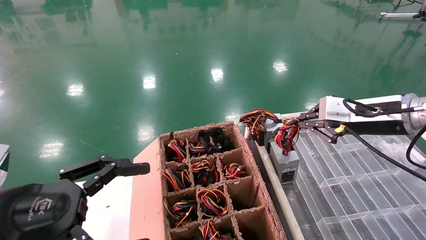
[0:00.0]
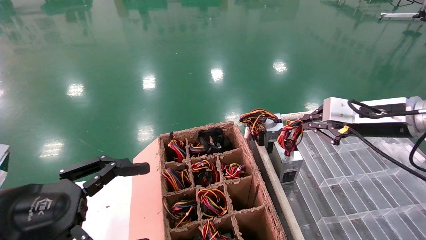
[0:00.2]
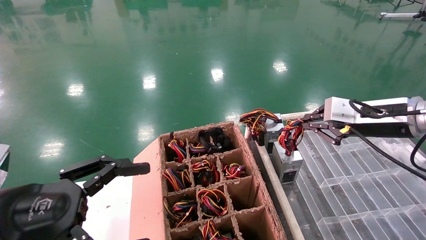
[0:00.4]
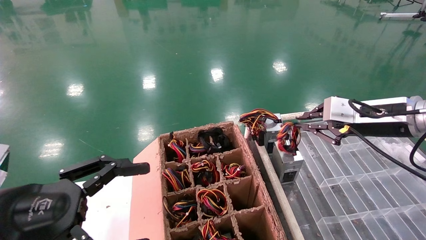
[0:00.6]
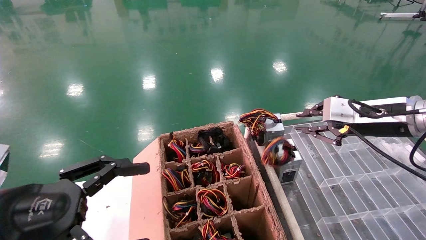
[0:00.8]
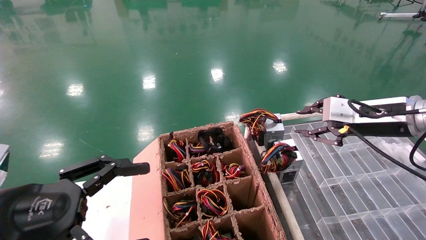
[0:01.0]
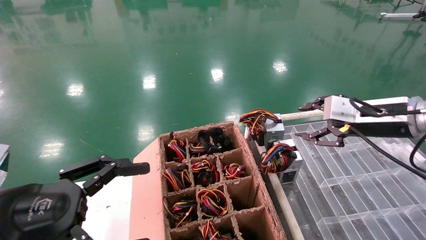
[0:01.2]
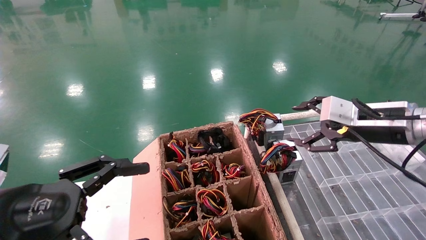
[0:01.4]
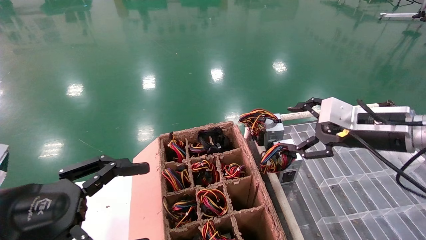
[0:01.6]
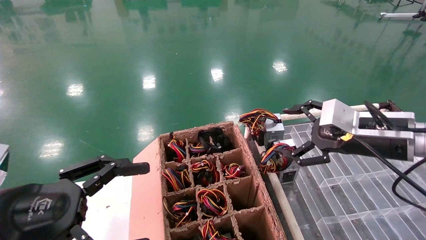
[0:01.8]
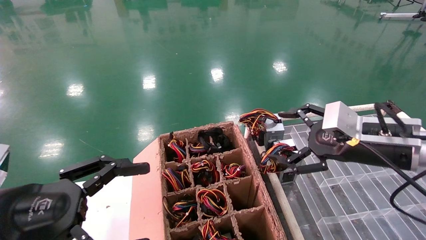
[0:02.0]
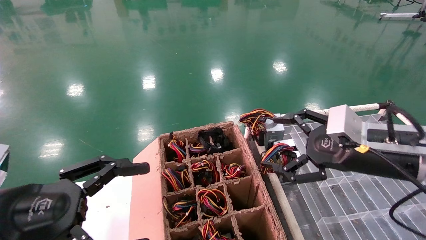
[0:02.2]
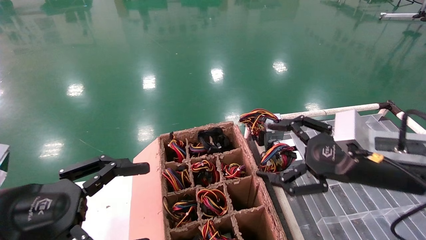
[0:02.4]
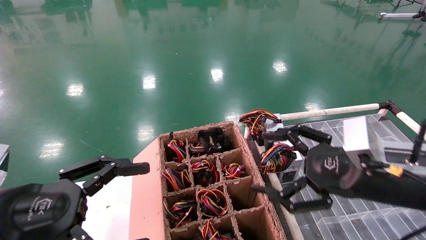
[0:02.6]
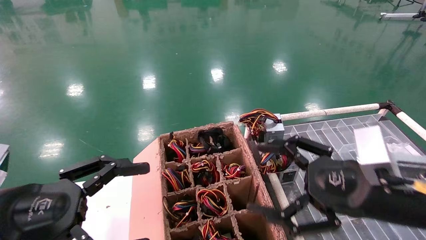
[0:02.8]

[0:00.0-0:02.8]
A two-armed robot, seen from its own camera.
0:00.0 to 0:01.4: The right gripper opens.
0:01.4 to 0:02.8: The right gripper travels backward, to the left and downward by about 15 cm, and opens its fingers.
